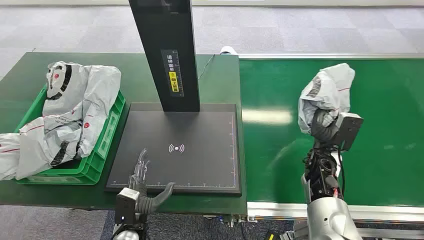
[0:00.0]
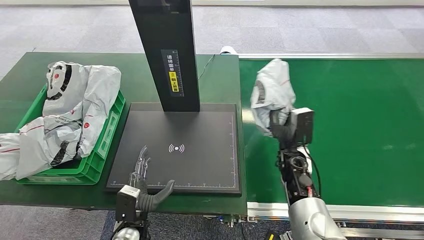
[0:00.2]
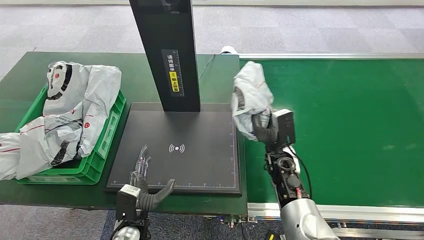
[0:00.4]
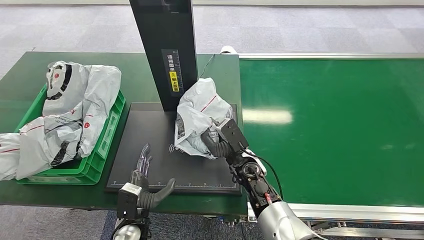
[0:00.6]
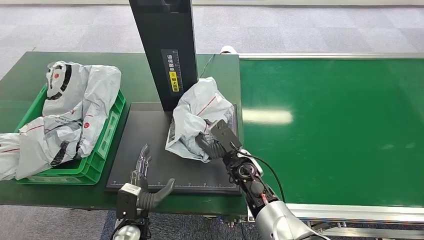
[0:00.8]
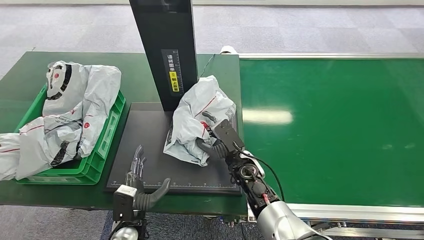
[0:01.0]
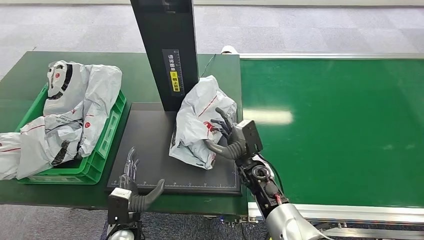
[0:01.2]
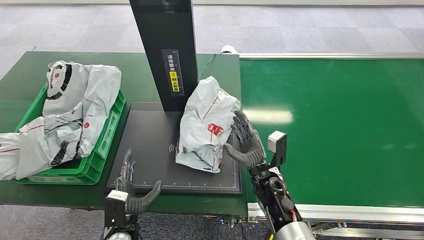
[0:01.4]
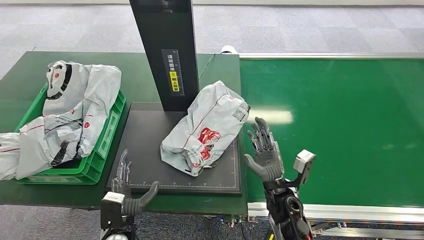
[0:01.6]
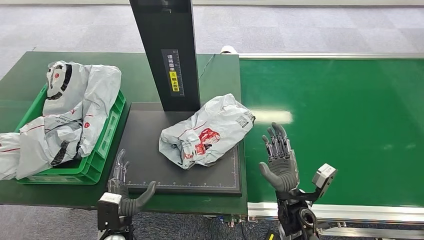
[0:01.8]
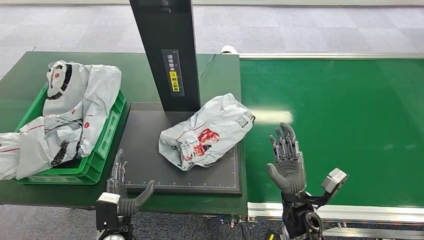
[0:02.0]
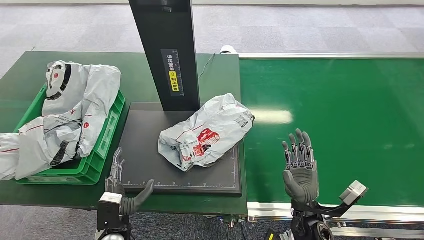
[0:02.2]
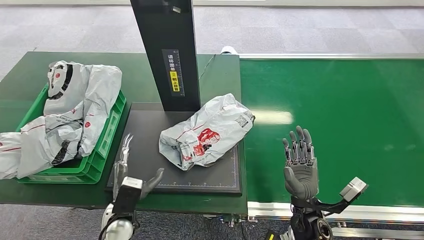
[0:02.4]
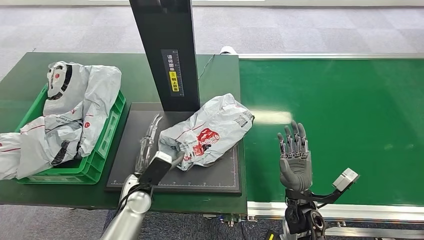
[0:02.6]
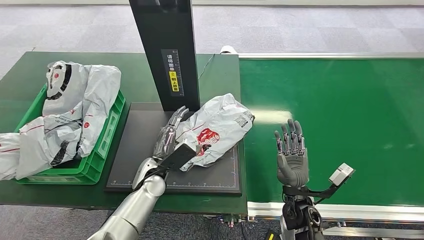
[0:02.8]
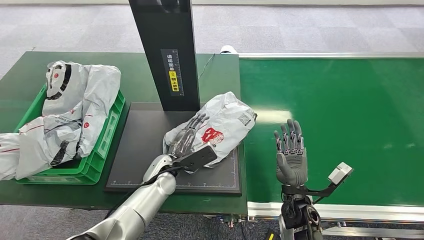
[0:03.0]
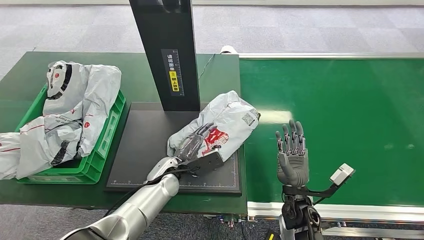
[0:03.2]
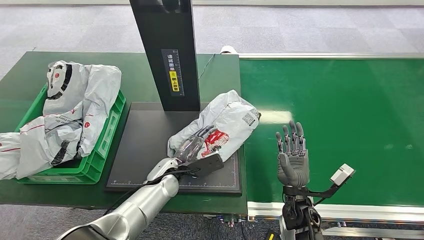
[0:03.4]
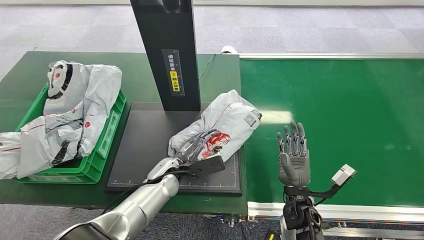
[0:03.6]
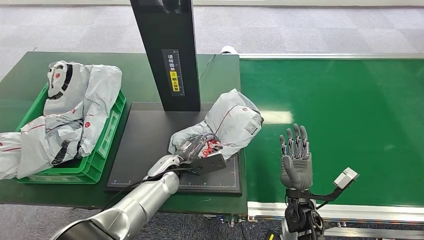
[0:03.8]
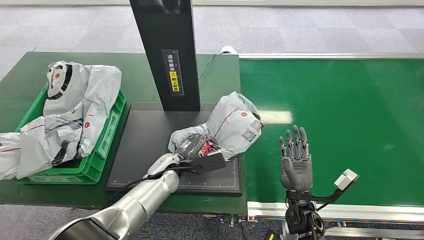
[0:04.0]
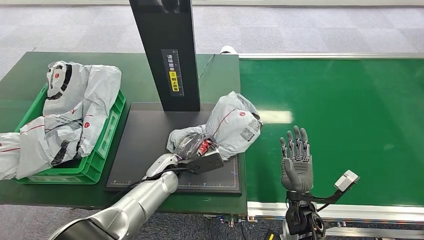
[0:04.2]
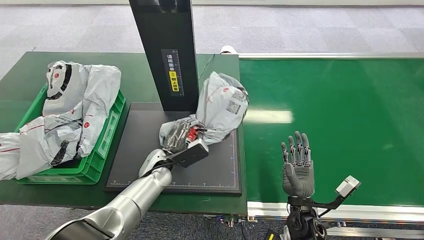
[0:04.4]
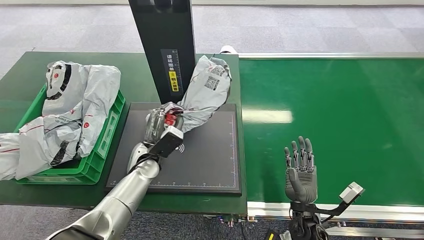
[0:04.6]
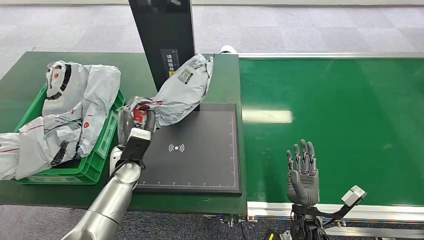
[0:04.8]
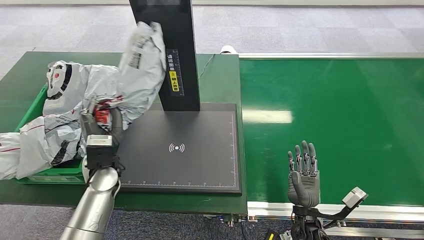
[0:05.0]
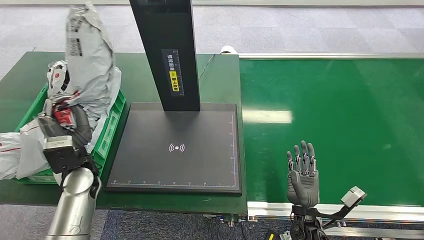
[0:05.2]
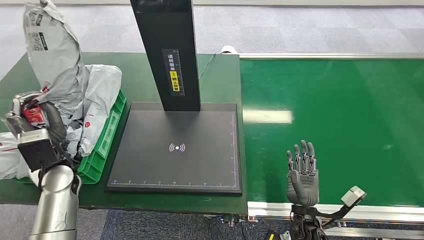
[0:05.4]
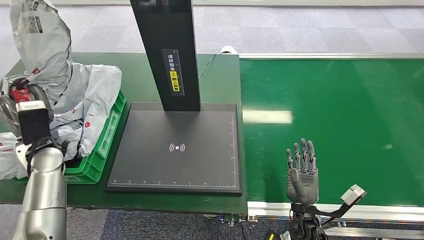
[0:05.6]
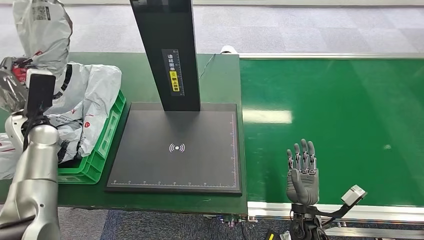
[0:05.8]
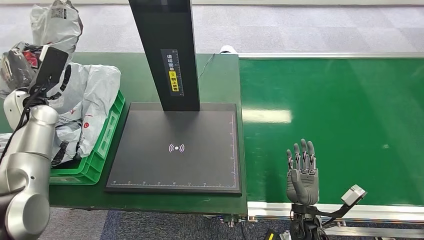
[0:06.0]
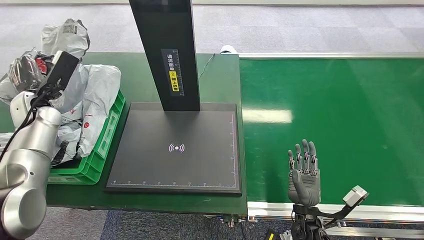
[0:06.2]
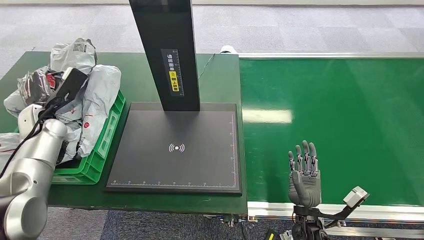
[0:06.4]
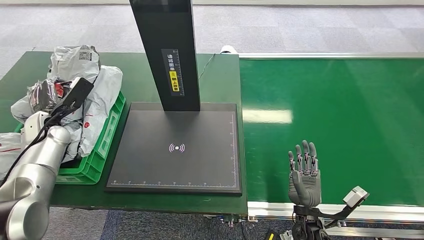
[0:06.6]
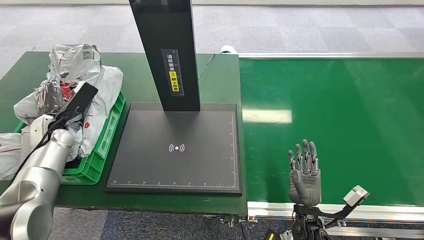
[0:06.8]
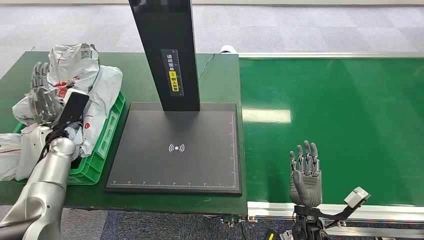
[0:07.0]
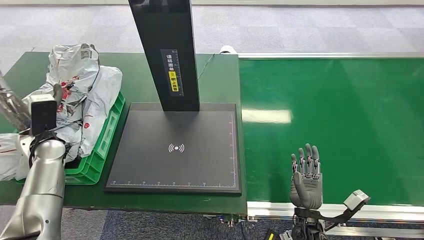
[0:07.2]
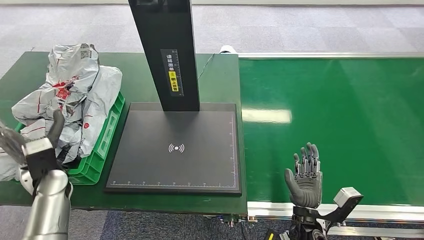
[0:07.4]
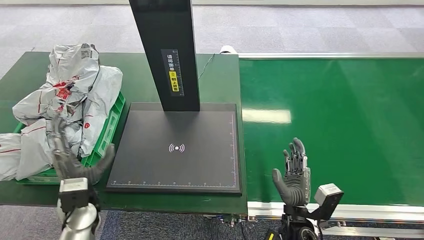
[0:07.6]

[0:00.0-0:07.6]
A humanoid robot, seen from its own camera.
0:01.6 to 0:03.0: The left hand travels forward, to the right and upward by roughly 20 cm.
0:03.0 to 0:04.6: The right hand shifts by some 5 cm; the left hand changes place by approximately 5 cm.
0:04.6 to 0:06.0: The left hand travels to the left and upward by some 30 cm.
0:06.0 to 0:07.6: The left hand travels backward, downward and to the right by roughly 30 cm.

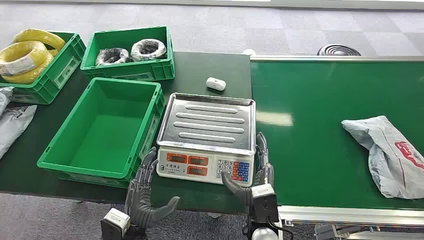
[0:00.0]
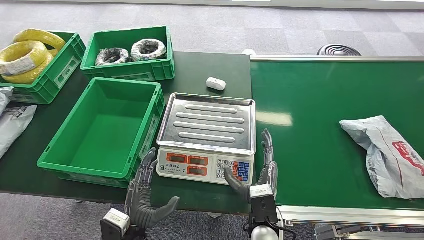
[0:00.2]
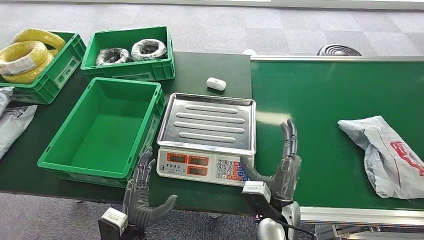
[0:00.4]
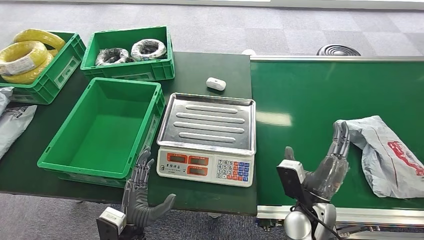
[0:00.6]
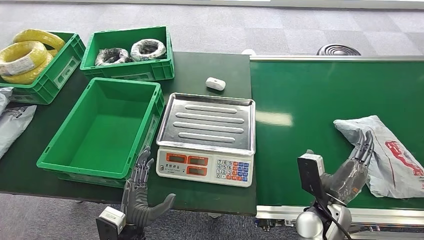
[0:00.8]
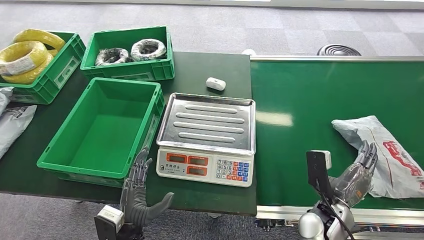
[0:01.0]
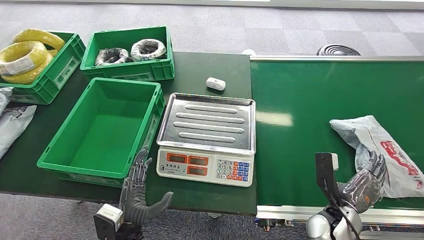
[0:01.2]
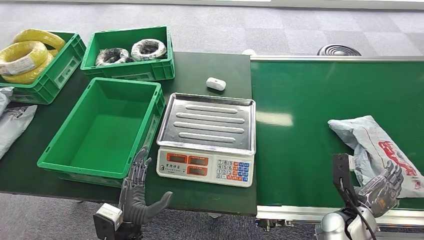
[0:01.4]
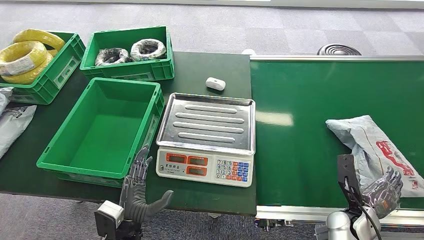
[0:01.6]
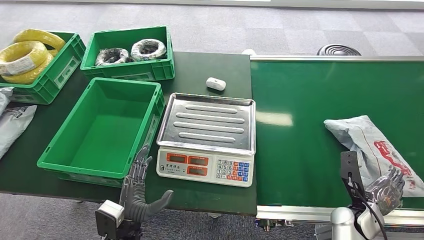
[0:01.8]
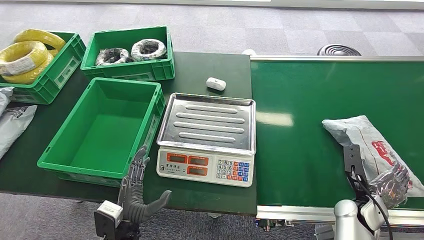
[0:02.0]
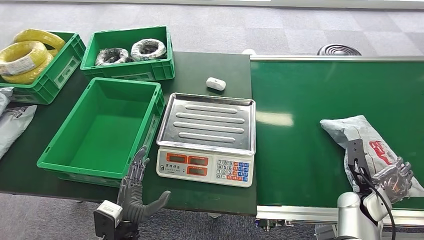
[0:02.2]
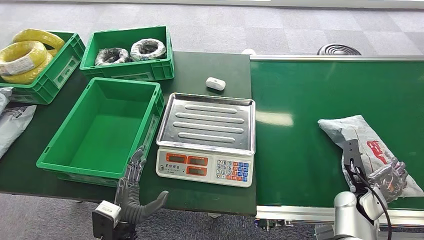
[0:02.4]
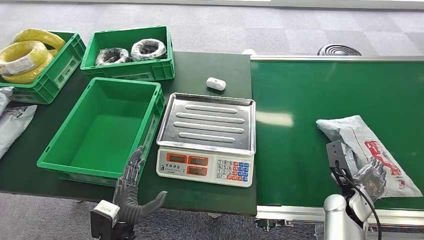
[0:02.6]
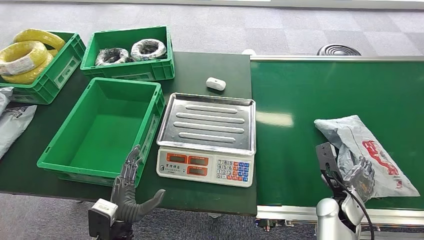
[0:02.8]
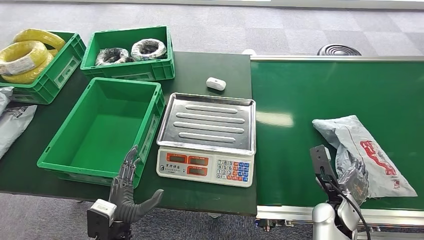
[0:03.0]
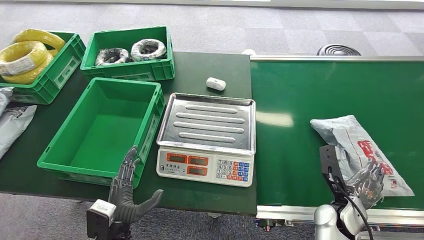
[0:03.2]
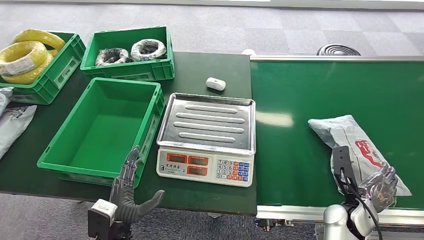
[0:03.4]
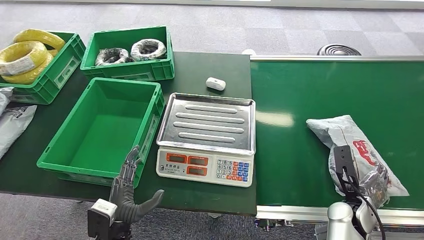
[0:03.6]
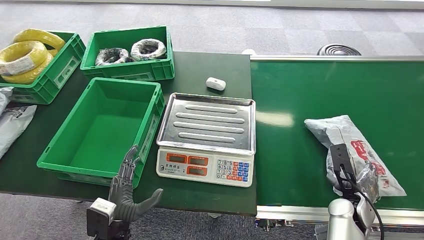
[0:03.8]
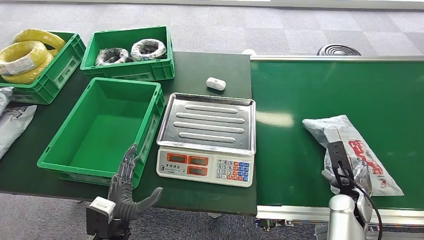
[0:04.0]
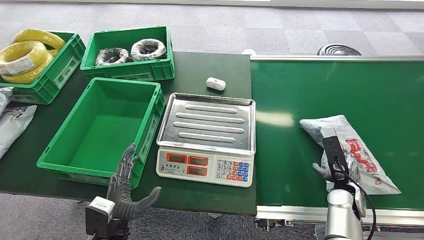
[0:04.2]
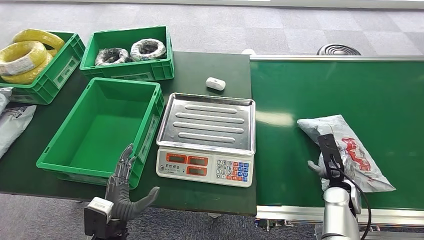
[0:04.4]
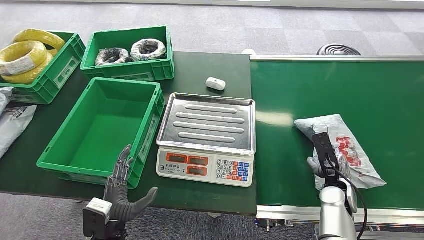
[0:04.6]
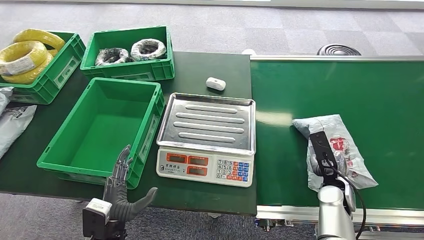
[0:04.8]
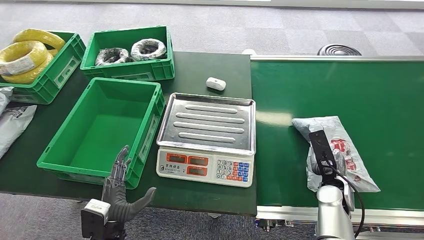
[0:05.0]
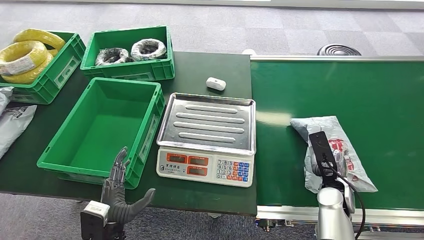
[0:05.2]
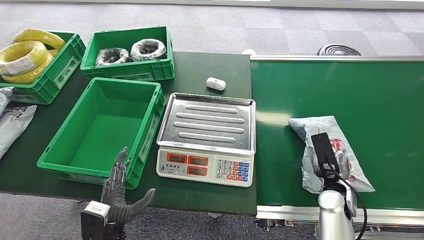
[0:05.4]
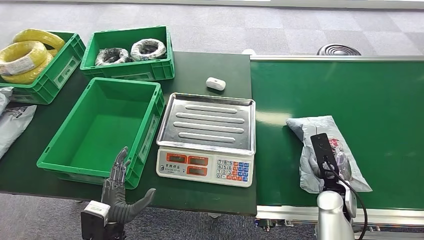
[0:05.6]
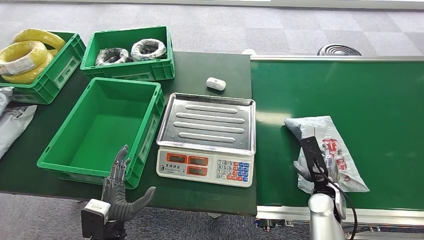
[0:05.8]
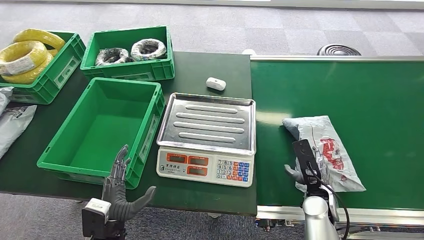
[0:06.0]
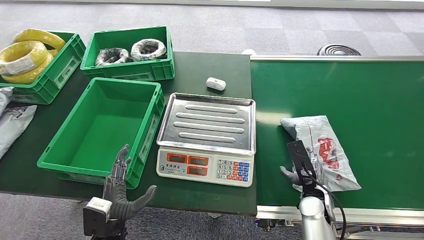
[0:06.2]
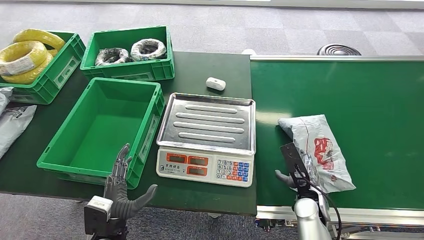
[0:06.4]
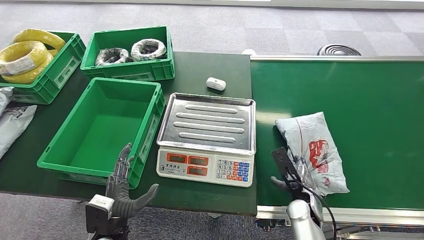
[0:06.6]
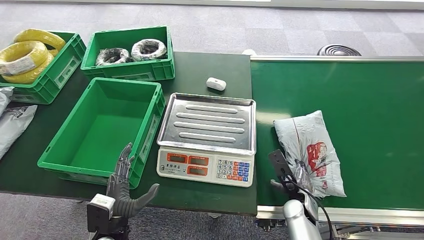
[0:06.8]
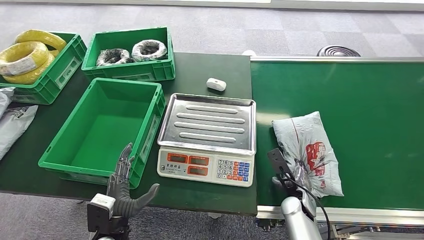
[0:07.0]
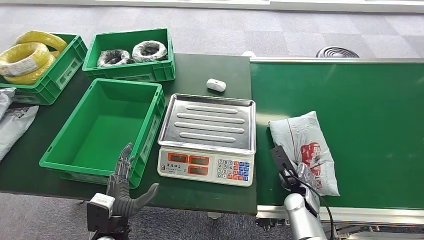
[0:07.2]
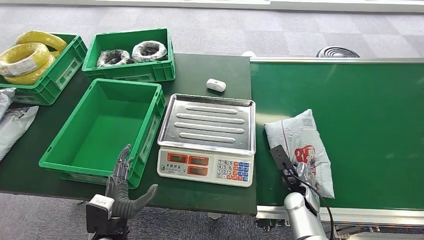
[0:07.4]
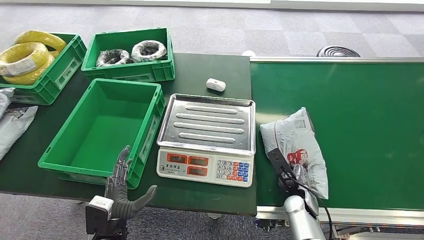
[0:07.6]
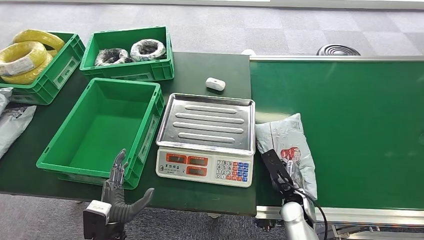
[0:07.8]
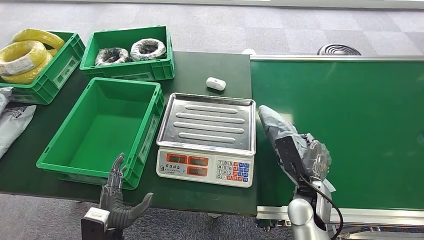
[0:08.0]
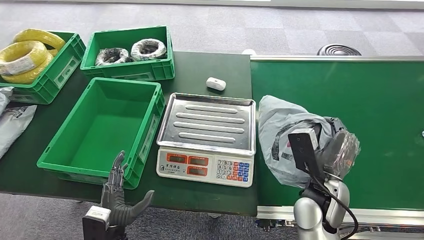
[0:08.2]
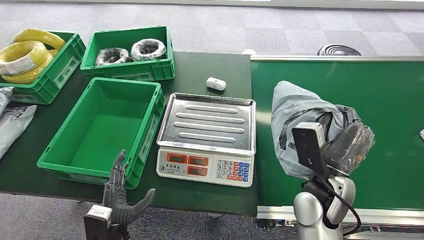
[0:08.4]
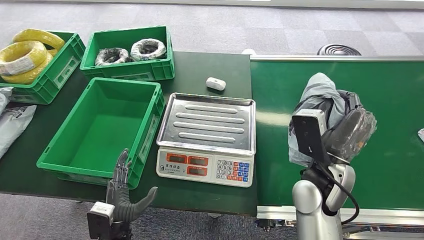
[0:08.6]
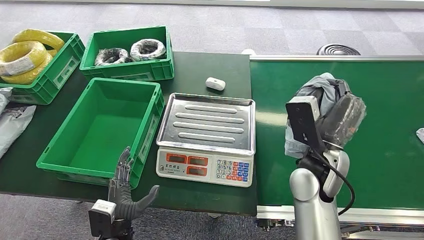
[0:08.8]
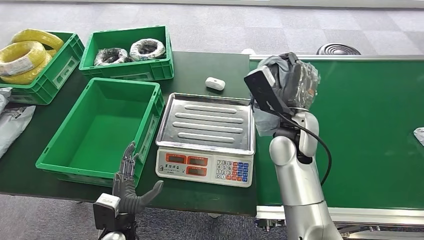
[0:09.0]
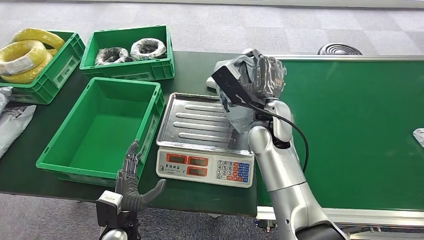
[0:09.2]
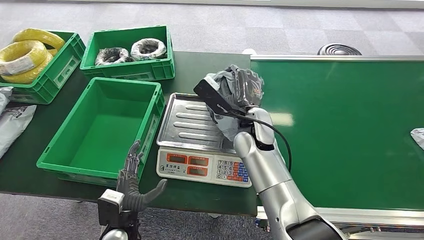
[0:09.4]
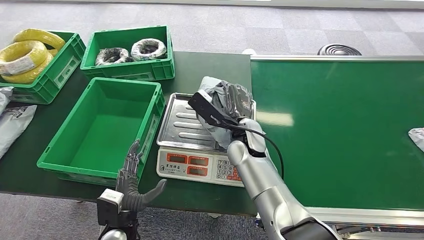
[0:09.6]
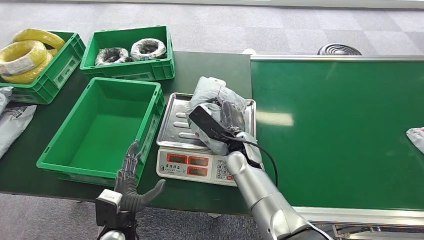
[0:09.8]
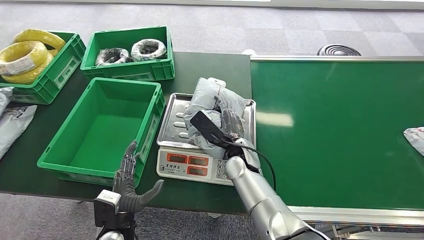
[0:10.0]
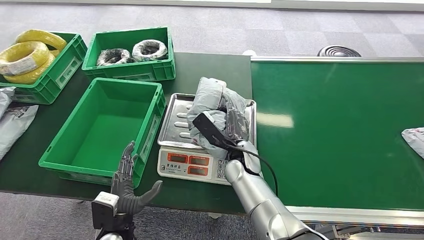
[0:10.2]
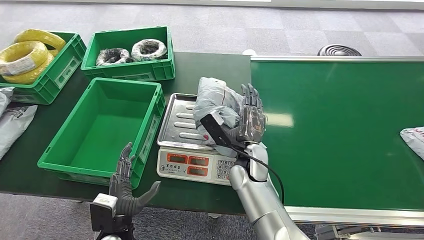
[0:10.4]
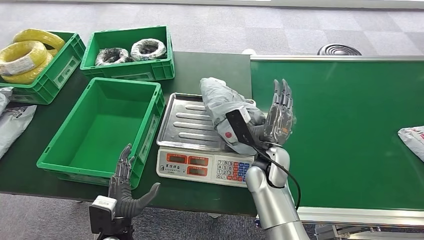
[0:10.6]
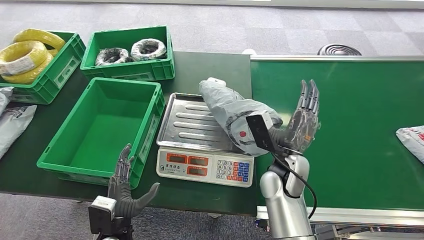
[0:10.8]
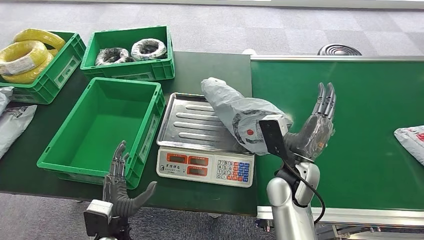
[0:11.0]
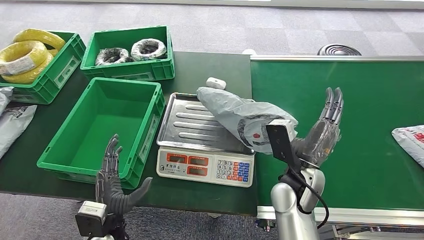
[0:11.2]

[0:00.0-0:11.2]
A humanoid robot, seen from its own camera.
Step, 0:00.0 to 0:08.0: Pick up the package from the conveyor belt.
0:01.6 to 0:03.2: The right hand shifts by some 5 cm.
0:03.2 to 0:04.8: The right hand shifts by about 5 cm.
0:04.8 to 0:06.4: The right hand heads to the left, covering some 5 cm.
0:06.4 to 0:08.0: The right hand heads upward, covering some 5 cm.
0:08.0 to 0:09.6: The right hand goes some 20 cm to the left, forward and upward.
0:09.6 to 0:11.2: The right hand travels backward and to the right by some 15 cm.
